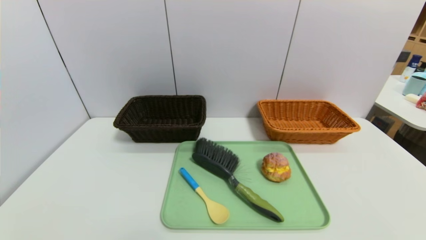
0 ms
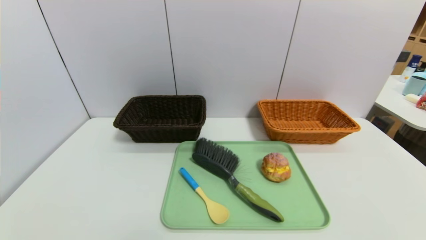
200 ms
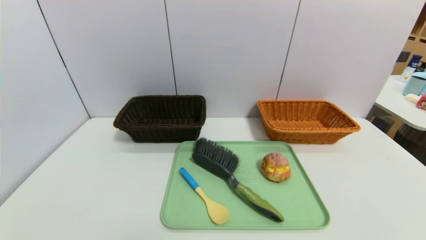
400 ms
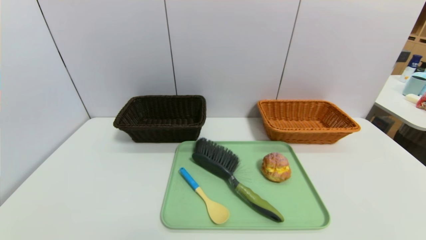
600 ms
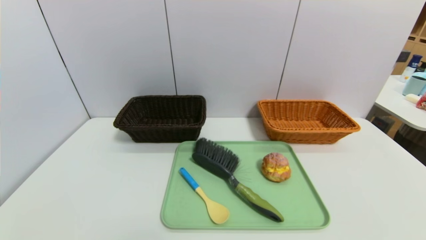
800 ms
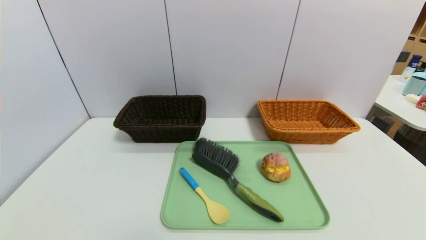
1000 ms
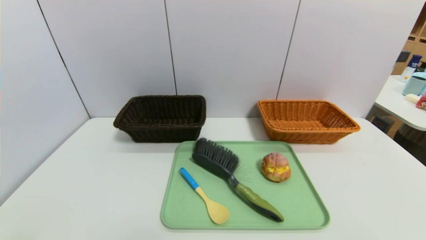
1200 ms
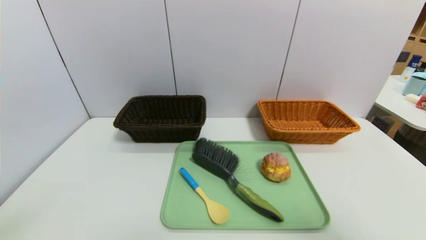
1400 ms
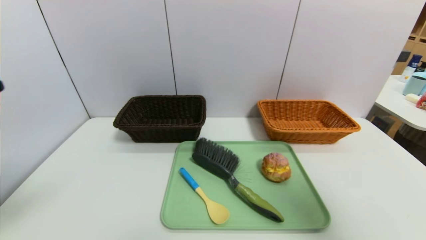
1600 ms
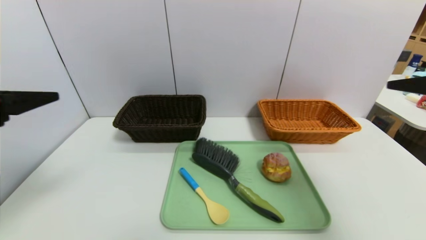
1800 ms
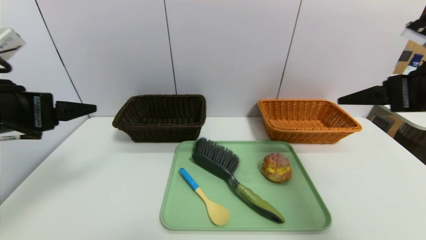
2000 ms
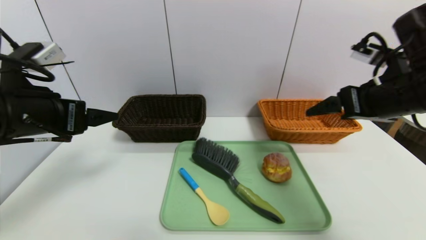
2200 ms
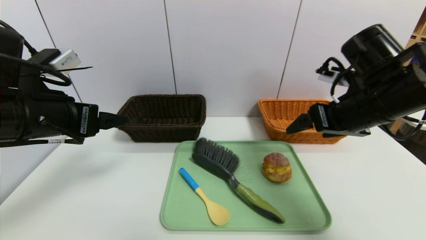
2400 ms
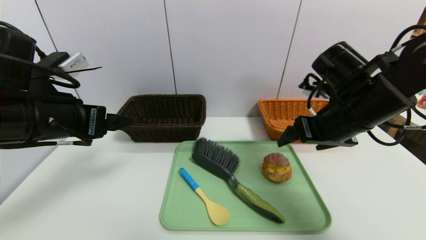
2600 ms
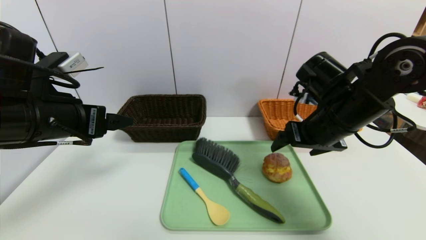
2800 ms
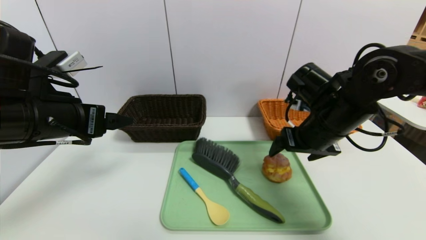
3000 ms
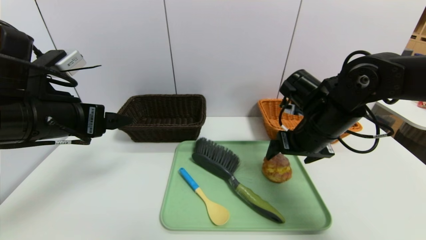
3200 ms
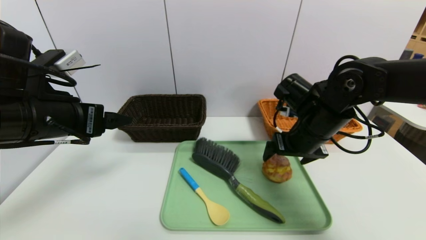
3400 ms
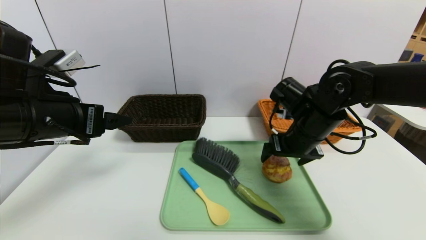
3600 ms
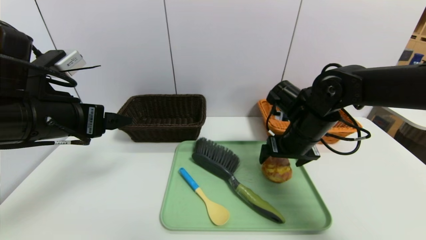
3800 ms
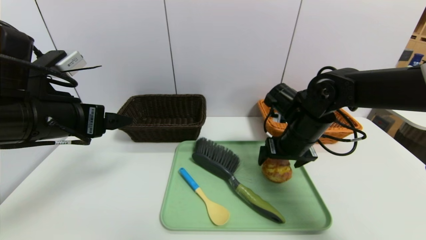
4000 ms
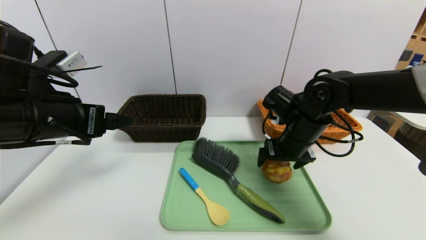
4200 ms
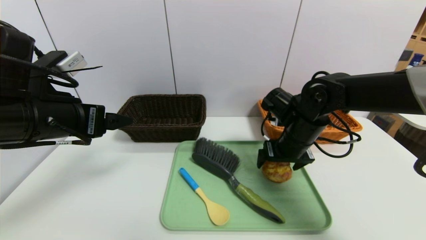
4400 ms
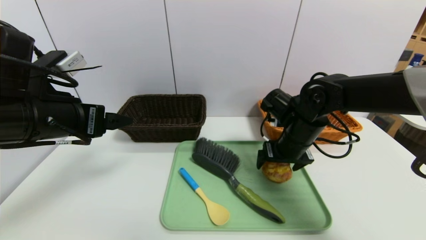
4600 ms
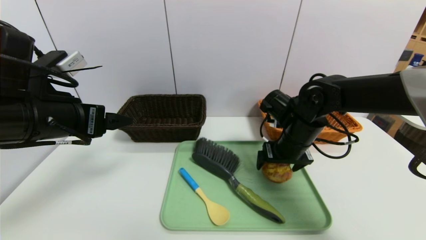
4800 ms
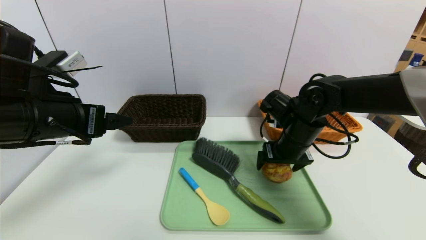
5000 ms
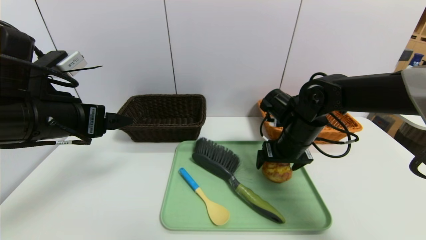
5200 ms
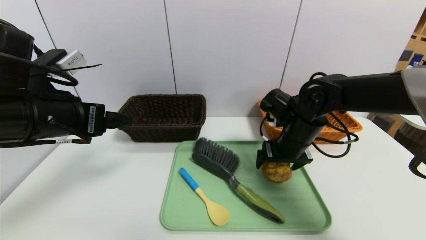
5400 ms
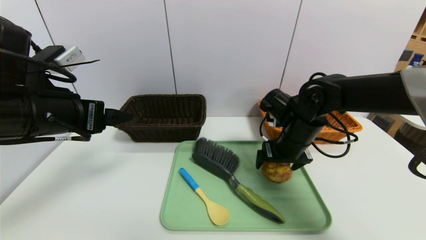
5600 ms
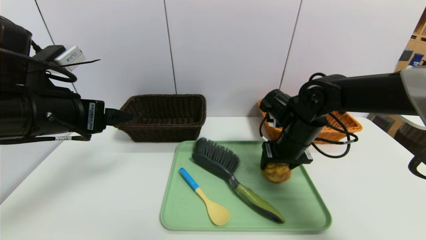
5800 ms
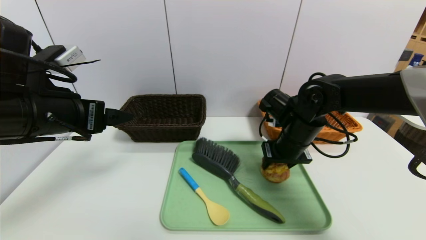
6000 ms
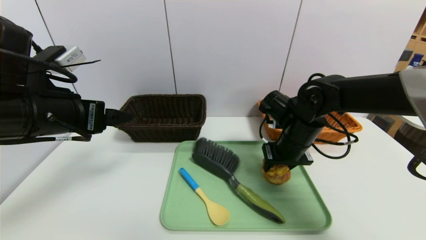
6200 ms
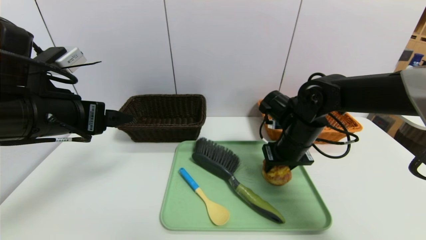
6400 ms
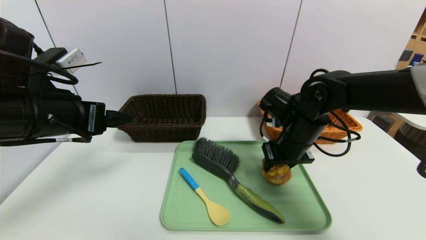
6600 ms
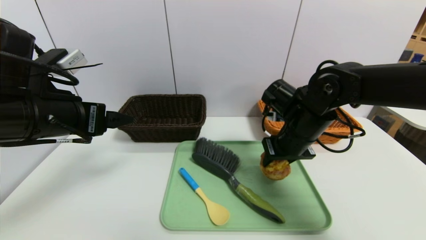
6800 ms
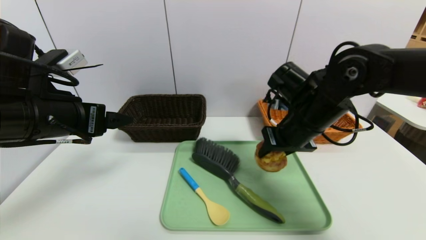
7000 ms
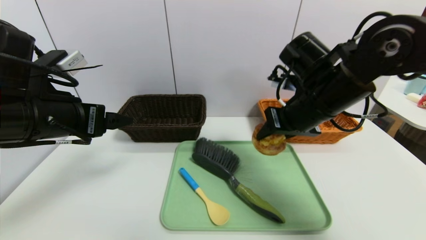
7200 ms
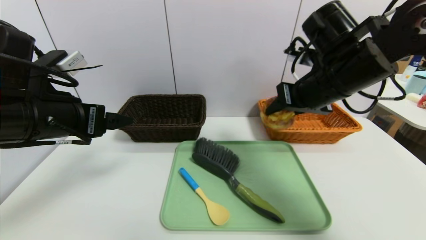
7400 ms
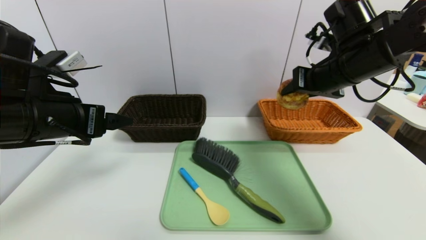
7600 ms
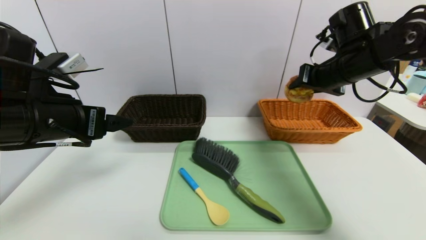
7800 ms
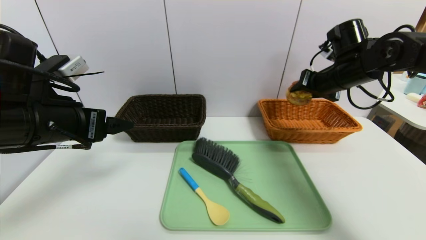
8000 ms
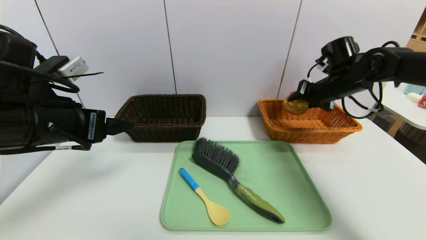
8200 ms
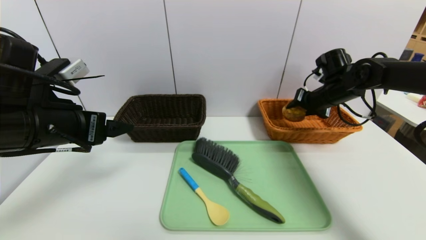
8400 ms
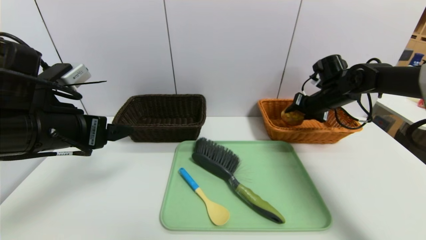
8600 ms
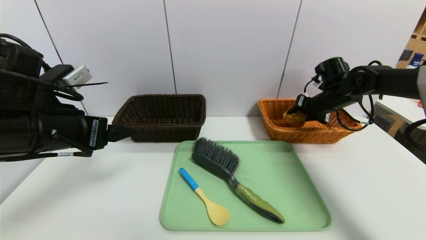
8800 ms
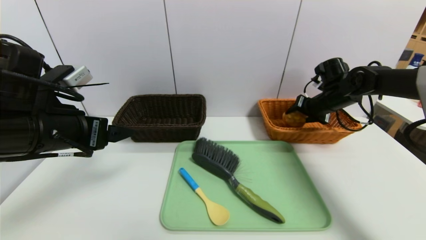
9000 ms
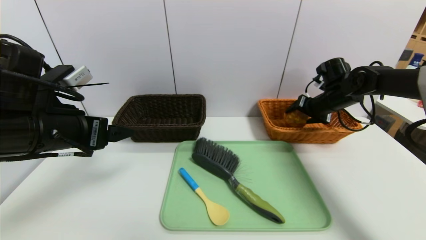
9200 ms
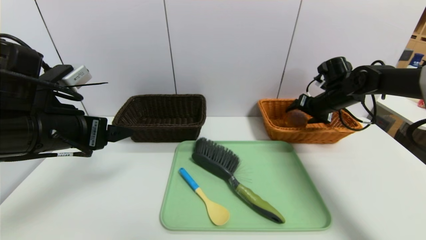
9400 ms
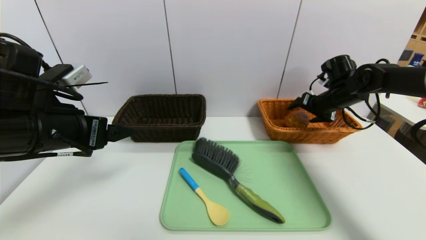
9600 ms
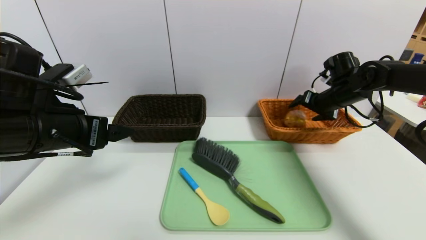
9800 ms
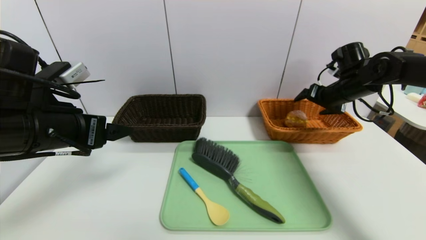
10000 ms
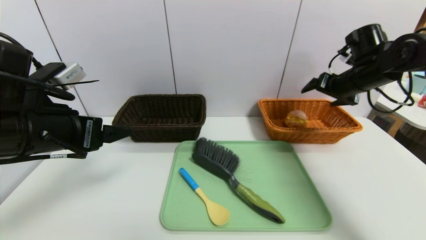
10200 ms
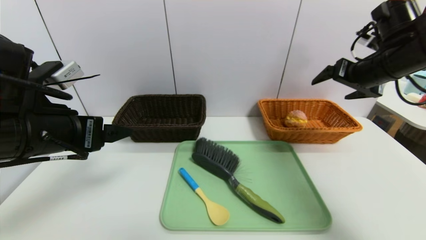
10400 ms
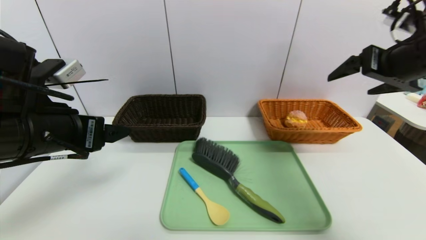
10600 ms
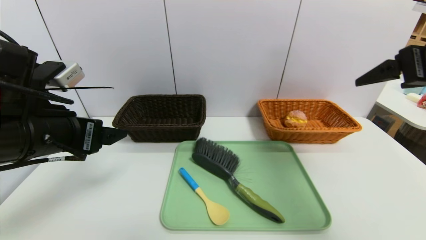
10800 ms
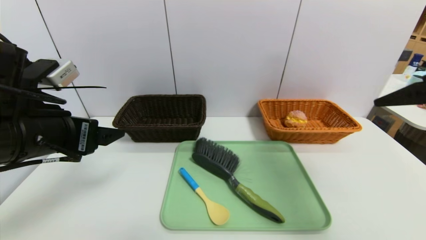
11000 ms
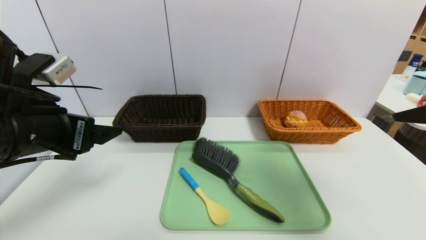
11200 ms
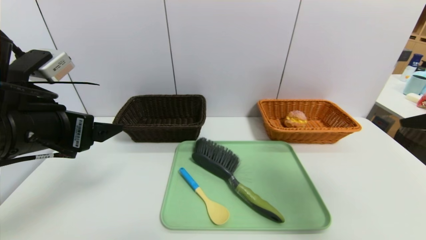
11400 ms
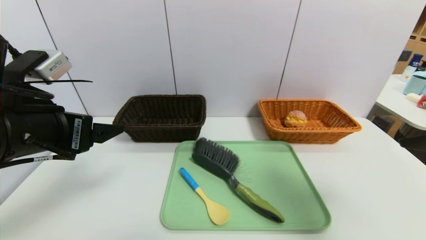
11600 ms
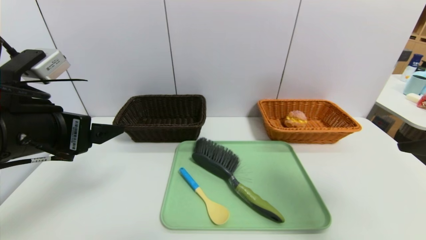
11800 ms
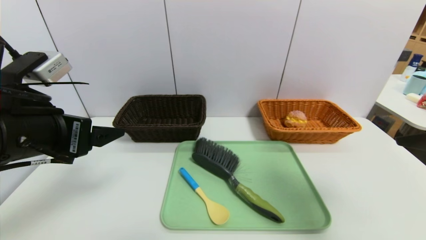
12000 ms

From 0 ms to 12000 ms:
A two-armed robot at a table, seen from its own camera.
Task of the whole recording: place the food in the right basket with the right gripper, and place the non food items in the left basket with the left gripper.
Step, from 0 ms to 9600 ms: Grasp the yellow cake and put it in the right basket.
From 0 ms to 1600 ms: The left gripper is displaced upward by roughly 25 cm. Meanwhile the right gripper heads upward and forward, covering roughly 30 cm.
From 1600 ms to 3000 ms: The left gripper travels forward, to the right and downward by about 15 cm. Meanwhile the right gripper goes roughly 30 cm forward, to the left and downward.
From 3000 ms to 4400 ms: The right gripper is displaced downward by some 5 cm.
From 4400 ms to 6000 ms: The right gripper closes.
From 6000 ms to 7600 ms: The right gripper shifts approximately 15 cm upward.
From 7600 ms to 9000 ms: The right gripper goes some 20 cm forward, downward and to the right.
From 9000 ms to 10400 ms: The right gripper goes approximately 15 cm upward and backward, and opens its fingers.
From 10400 ms to 12000 ms: The right gripper heads backward, covering some 20 cm.

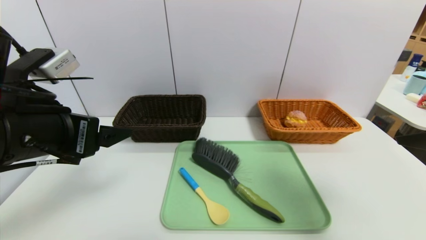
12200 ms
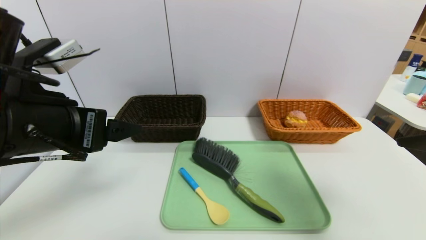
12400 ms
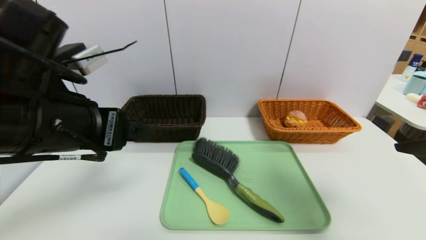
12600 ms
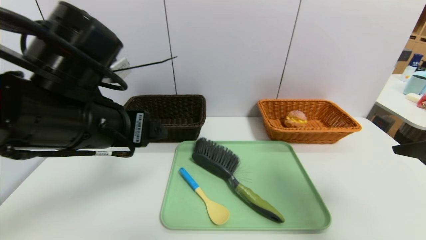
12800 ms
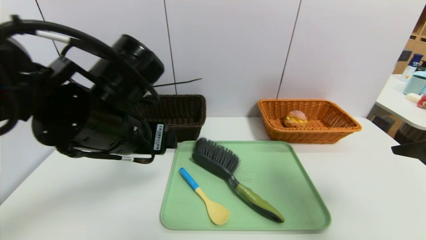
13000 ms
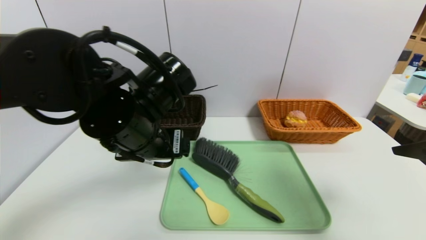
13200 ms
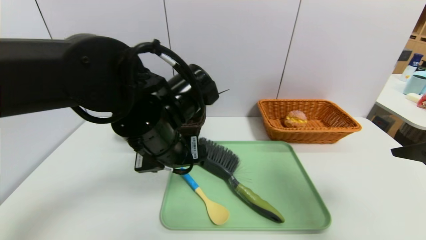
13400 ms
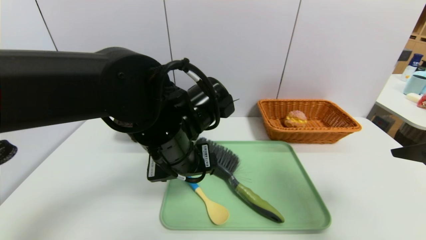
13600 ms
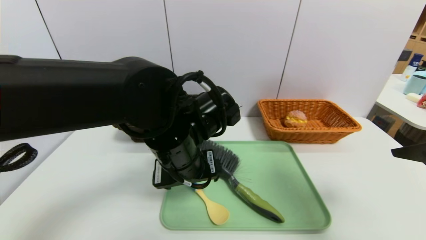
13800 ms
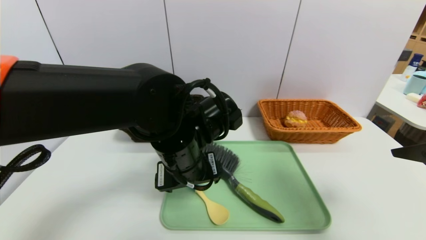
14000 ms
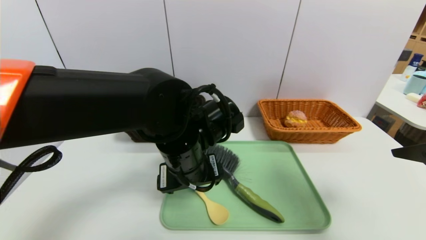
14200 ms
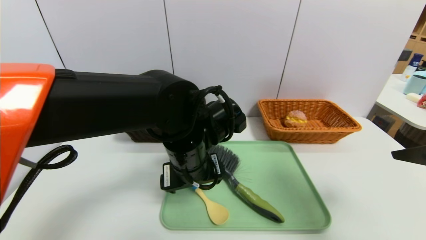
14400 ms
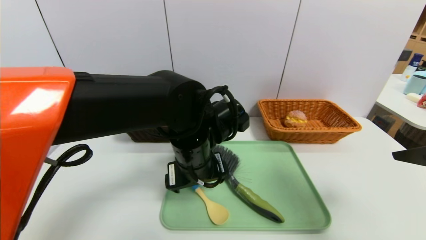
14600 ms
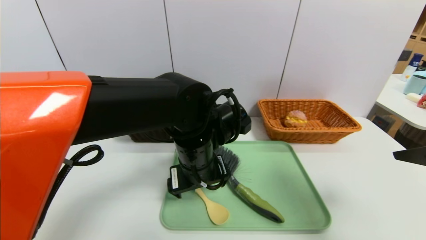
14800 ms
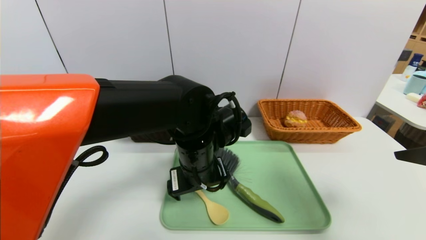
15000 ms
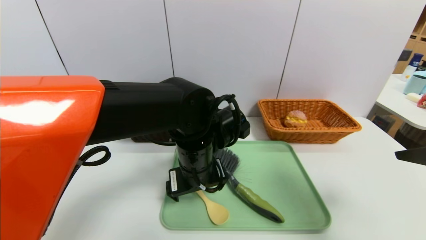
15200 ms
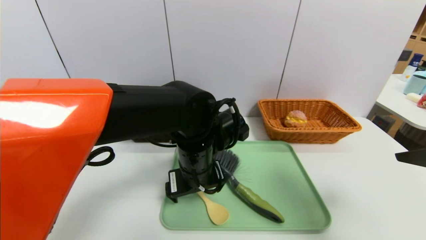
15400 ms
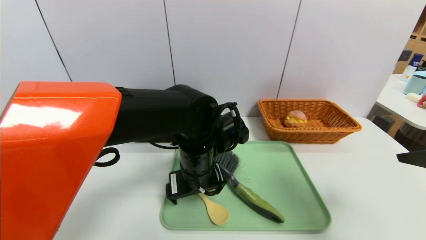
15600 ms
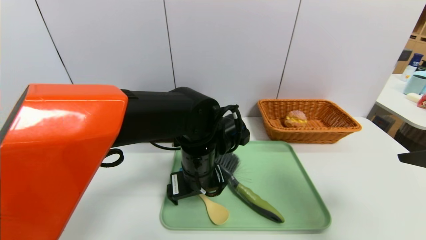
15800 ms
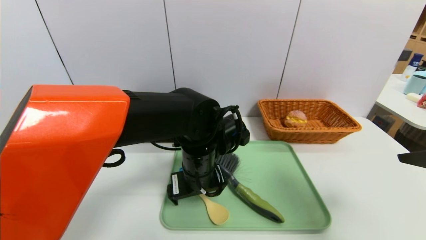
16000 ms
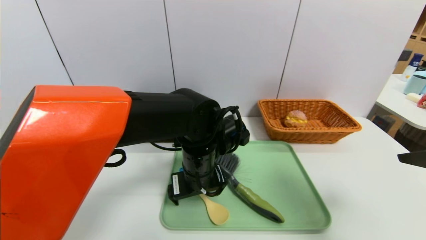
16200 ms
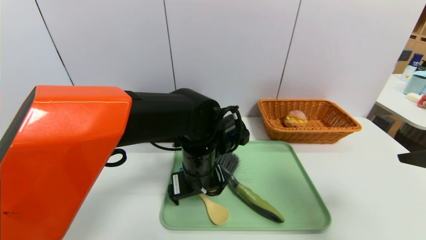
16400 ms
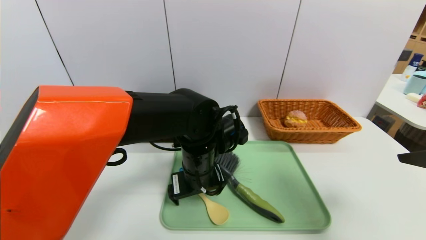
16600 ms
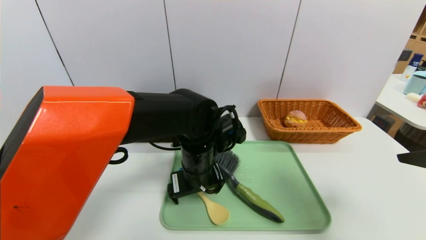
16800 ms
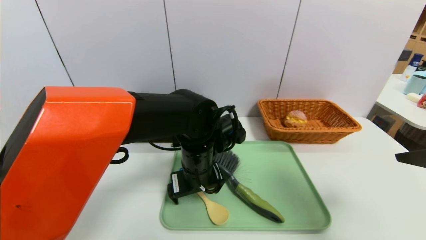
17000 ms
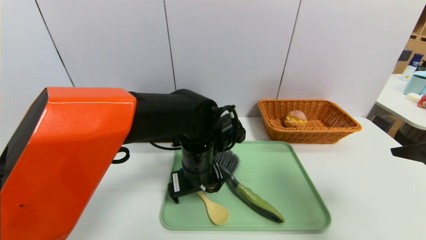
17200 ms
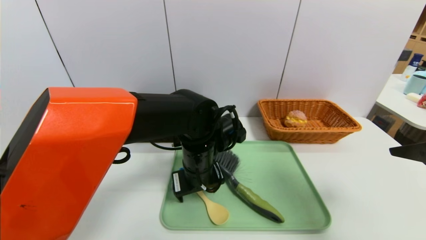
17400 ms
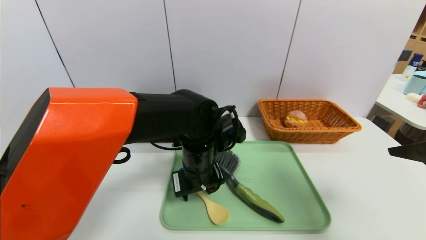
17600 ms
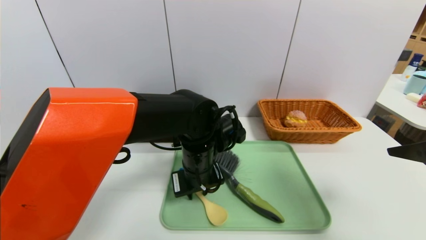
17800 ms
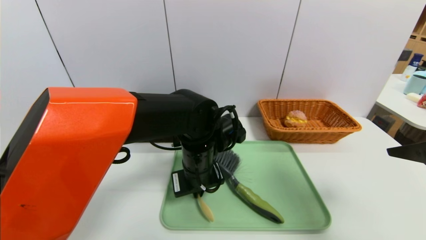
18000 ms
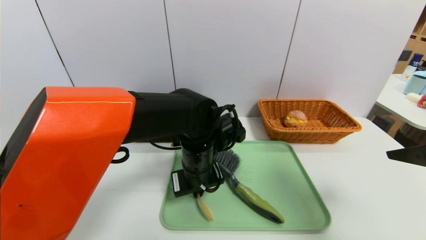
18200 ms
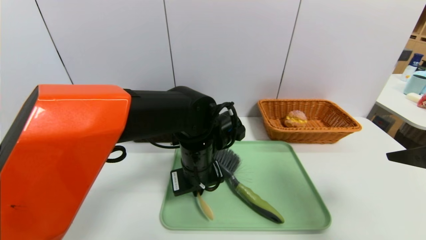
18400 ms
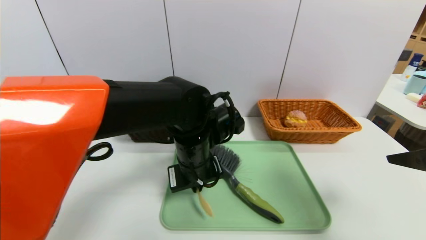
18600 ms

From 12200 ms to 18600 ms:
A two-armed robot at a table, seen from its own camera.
Task of the whole recording: place the food in the right basket with the right gripper, and place the non food items in the left basket with the left gripper.
From 12200 ms to 13800 ms: The left gripper heads to the right, downward and forward, covering about 20 cm.
From 13800 ms to 15400 ms: The left gripper moves some 5 cm.
From 15400 ms to 17000 ms: The grippers make only small movements.
From 17000 ms to 18600 ms: The left gripper closes.
